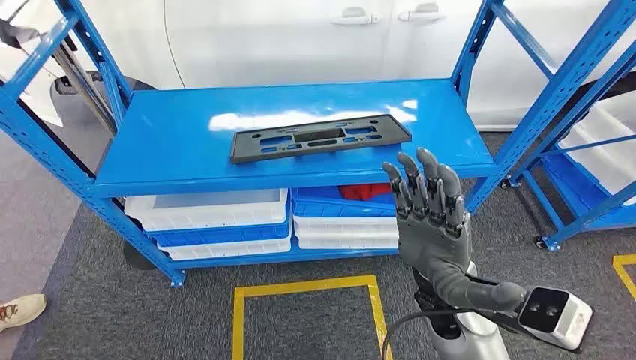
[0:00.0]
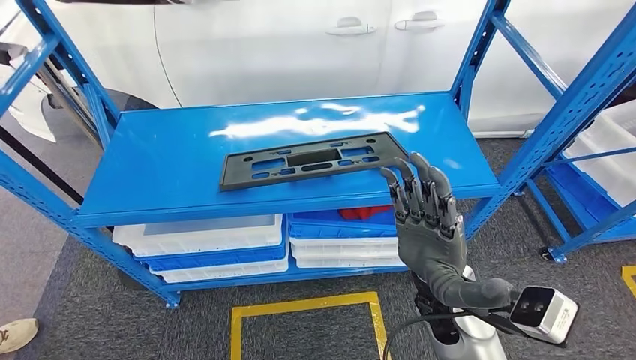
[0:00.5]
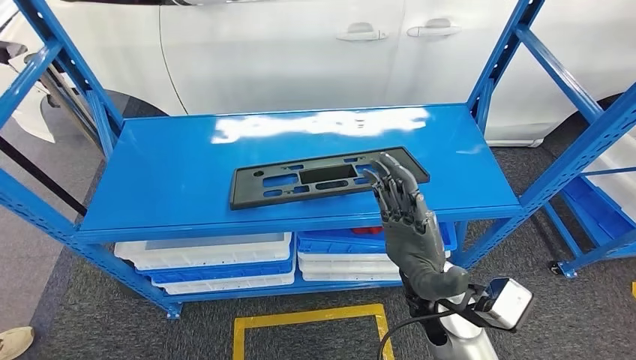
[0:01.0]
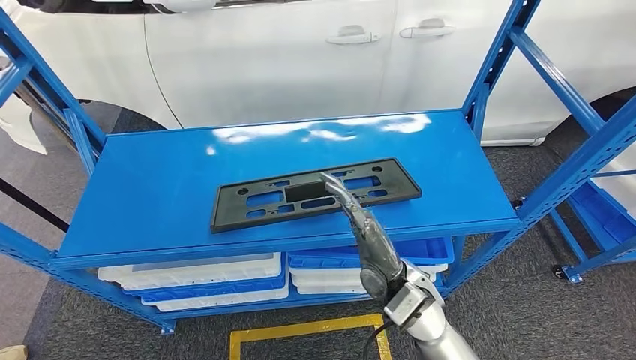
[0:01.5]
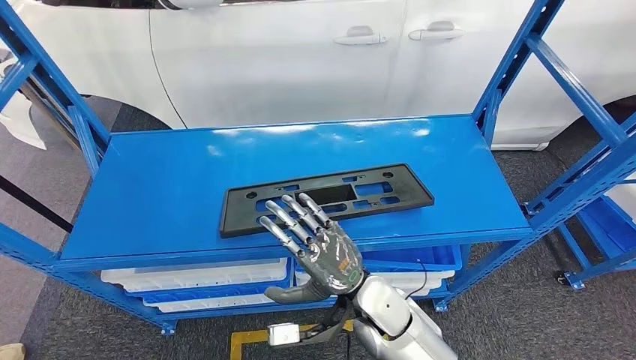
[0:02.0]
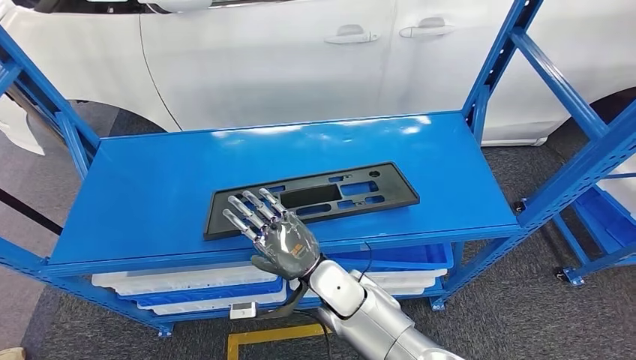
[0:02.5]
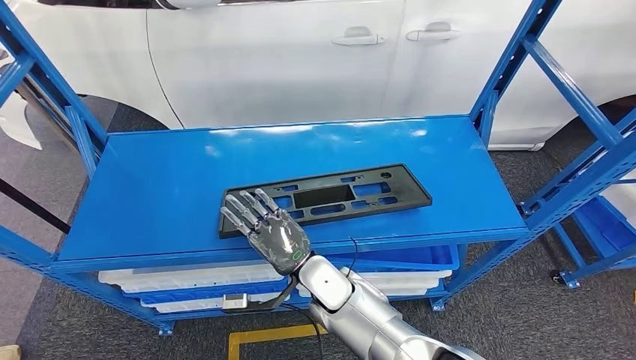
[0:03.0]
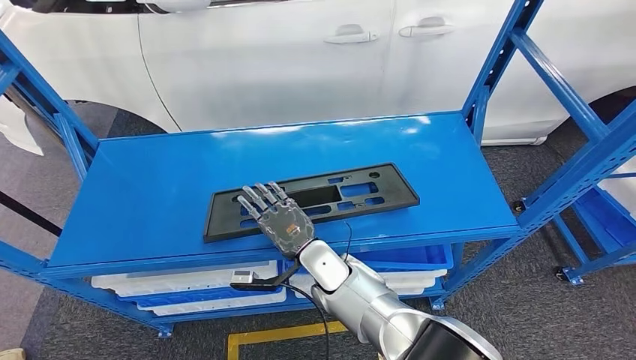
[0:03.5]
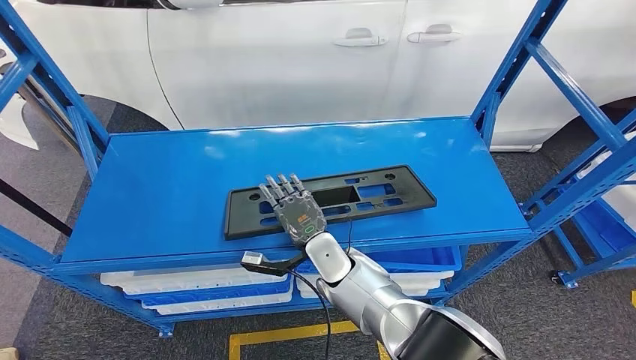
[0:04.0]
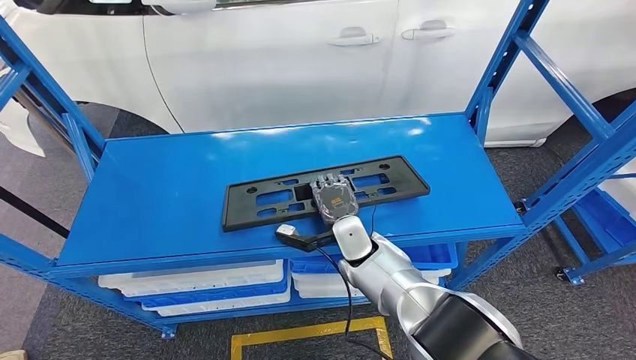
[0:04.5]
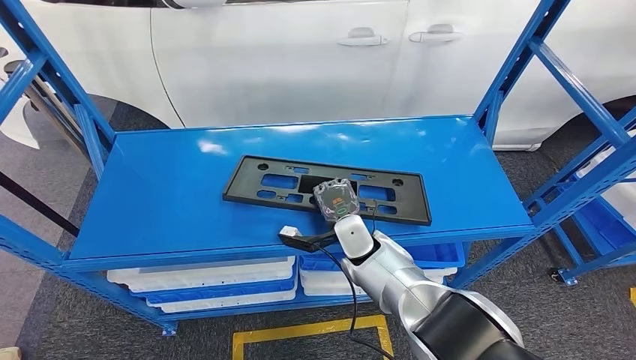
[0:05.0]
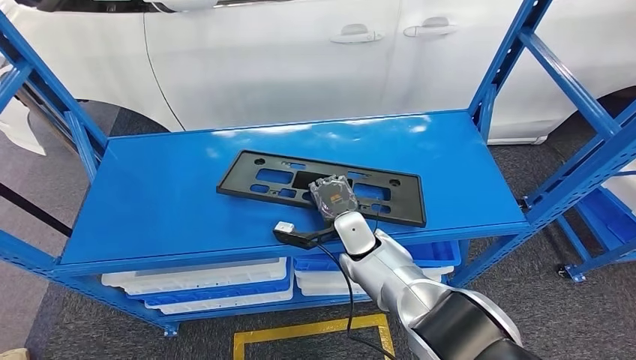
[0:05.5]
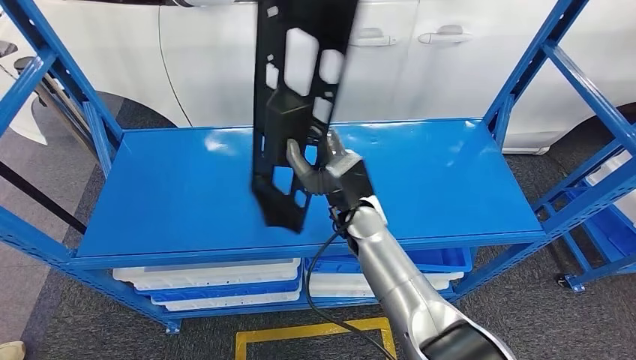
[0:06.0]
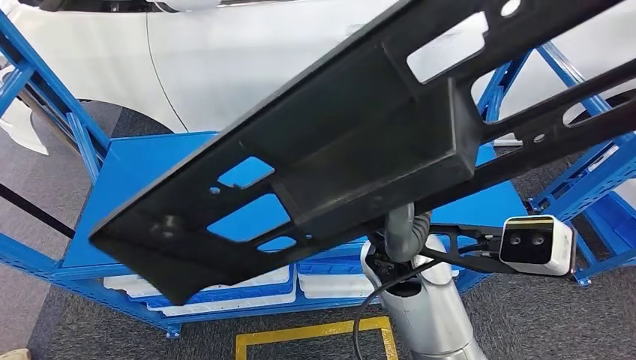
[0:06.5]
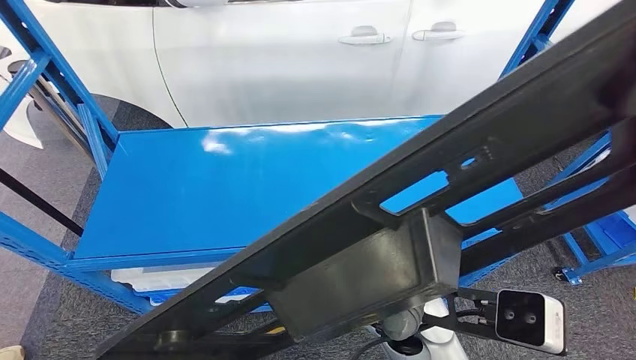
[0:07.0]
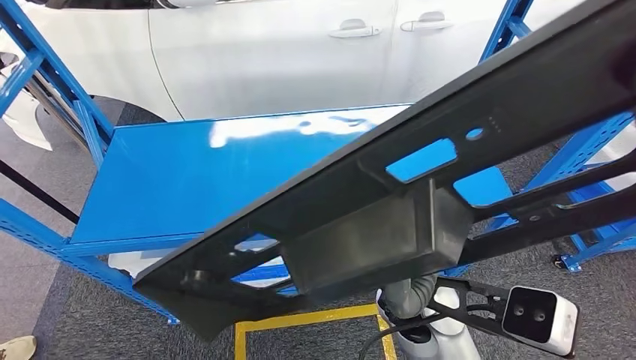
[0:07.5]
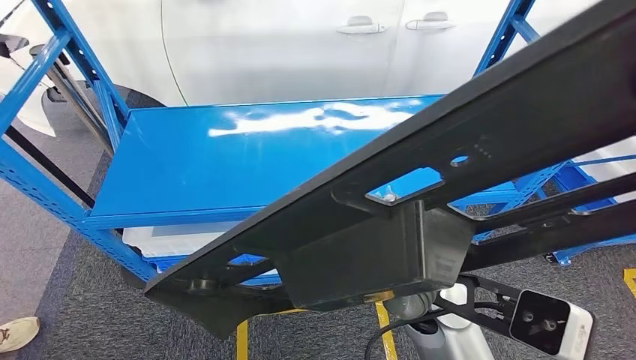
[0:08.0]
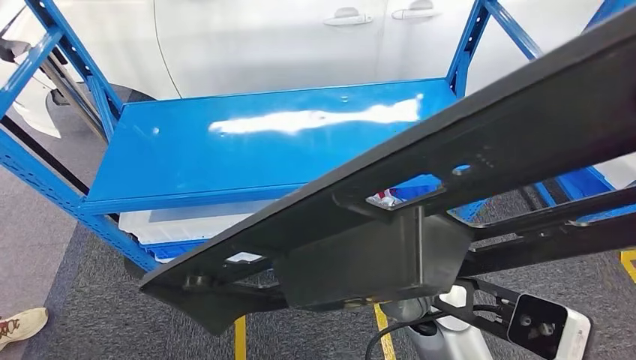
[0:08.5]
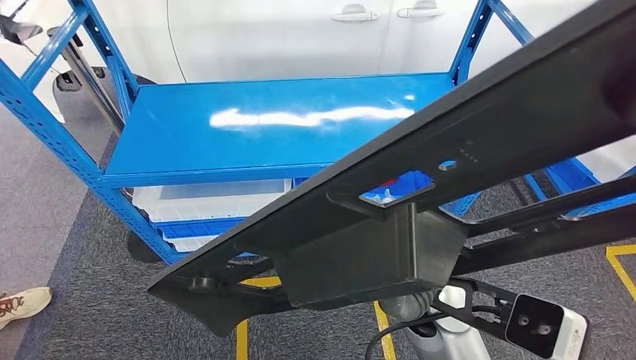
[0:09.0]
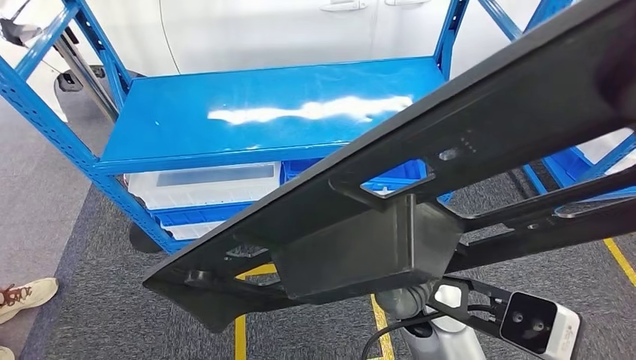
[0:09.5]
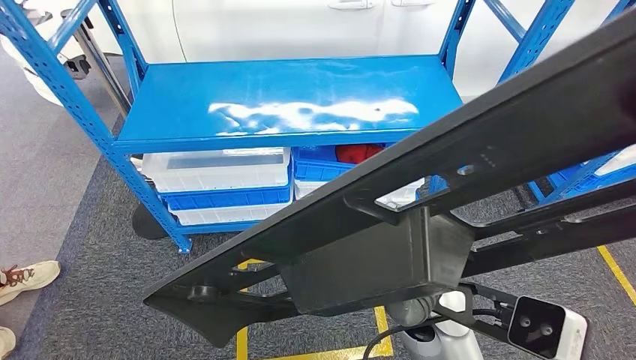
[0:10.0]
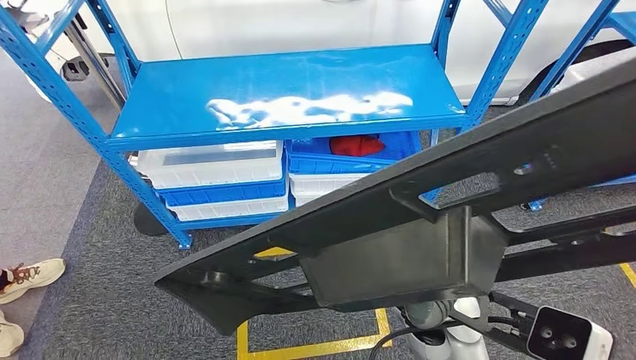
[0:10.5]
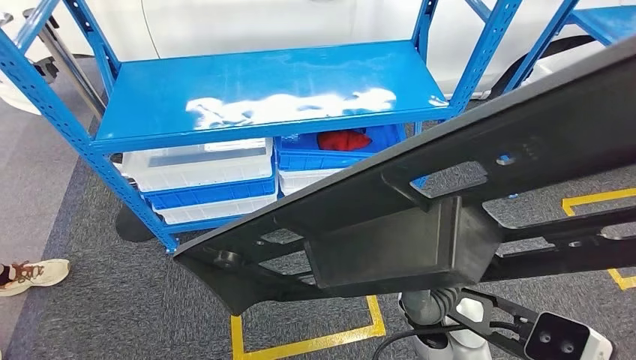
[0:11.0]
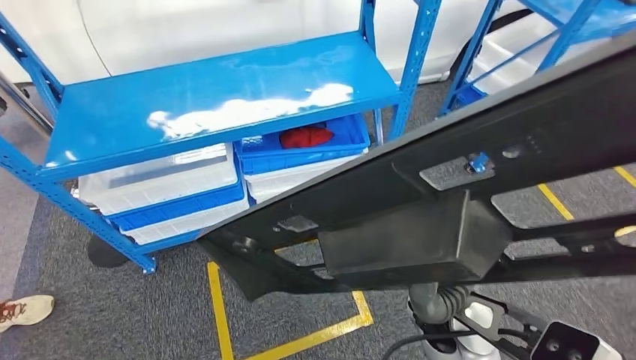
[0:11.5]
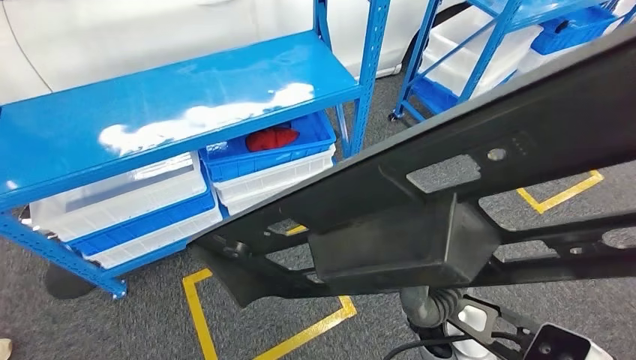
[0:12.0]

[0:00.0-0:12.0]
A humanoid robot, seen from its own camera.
Step, 0:00.0 to 0:07.5: Pick up the large material from the shelf.
0:02.0 to 0:04.0: The right hand moves forward and to the left, approximately 10 cm.

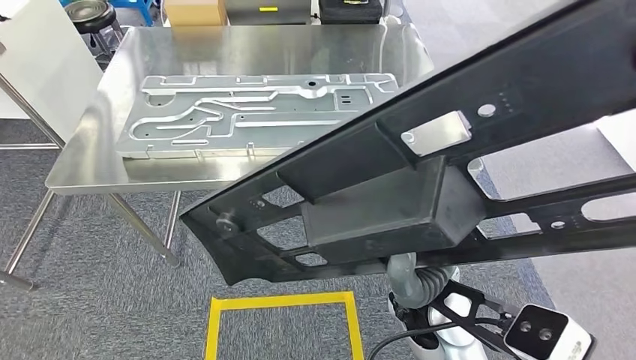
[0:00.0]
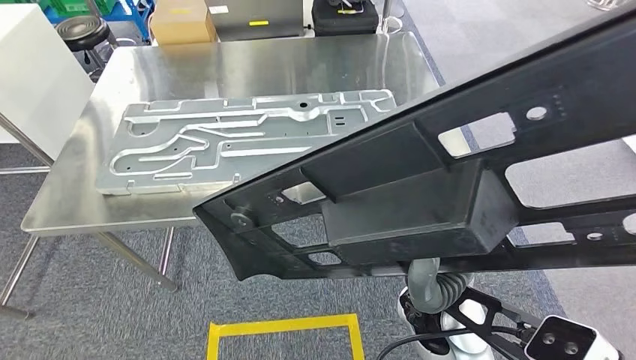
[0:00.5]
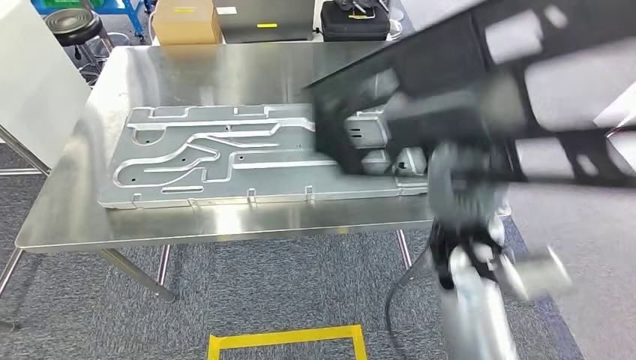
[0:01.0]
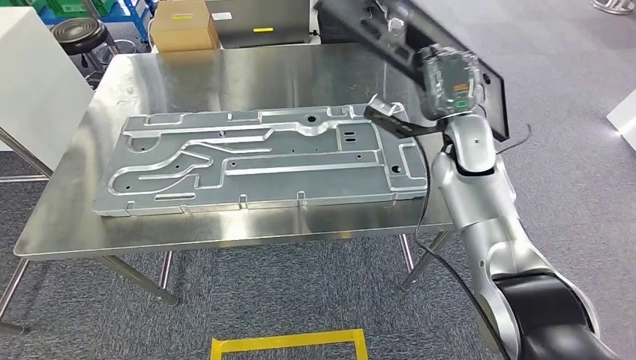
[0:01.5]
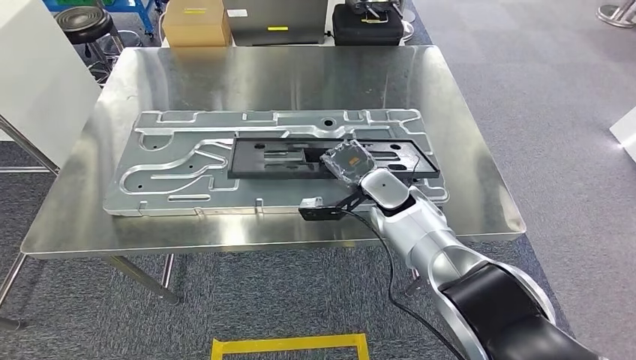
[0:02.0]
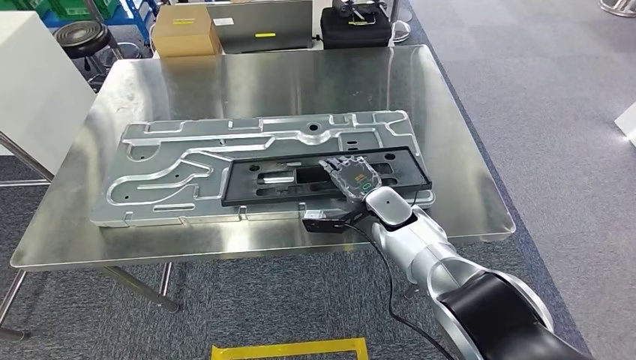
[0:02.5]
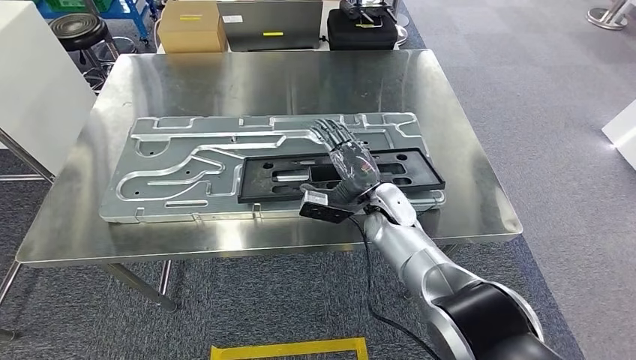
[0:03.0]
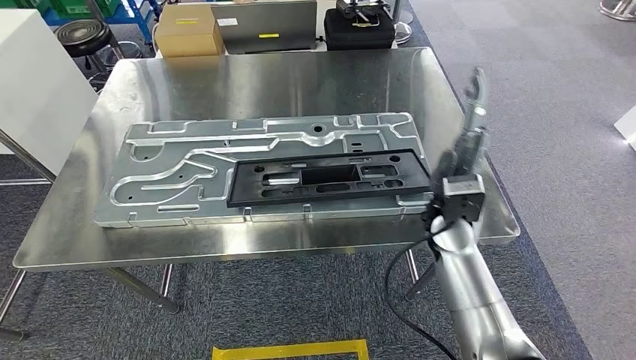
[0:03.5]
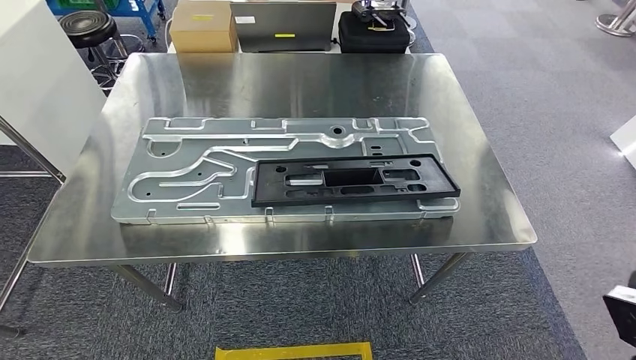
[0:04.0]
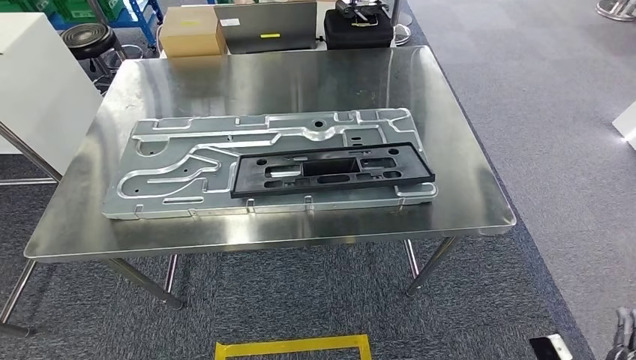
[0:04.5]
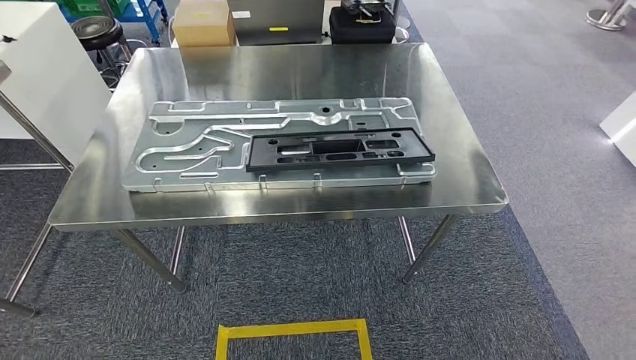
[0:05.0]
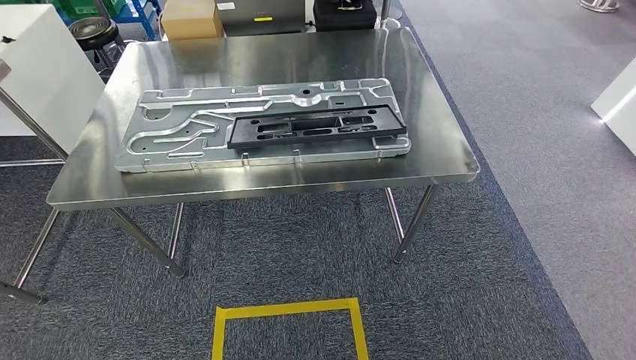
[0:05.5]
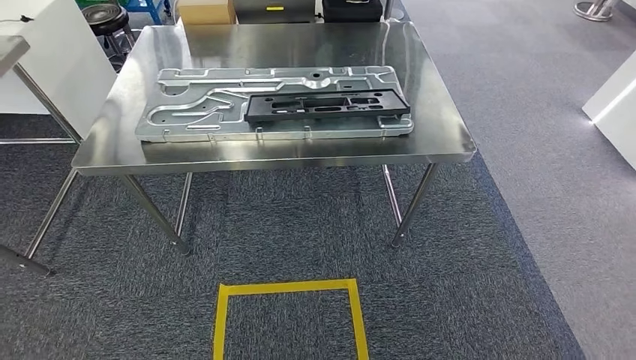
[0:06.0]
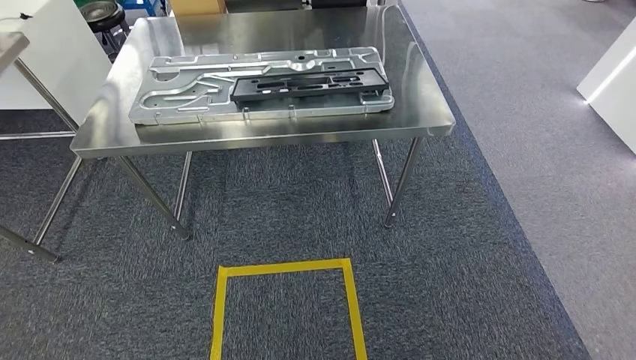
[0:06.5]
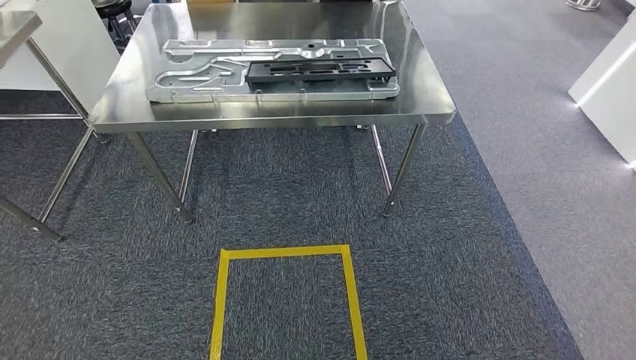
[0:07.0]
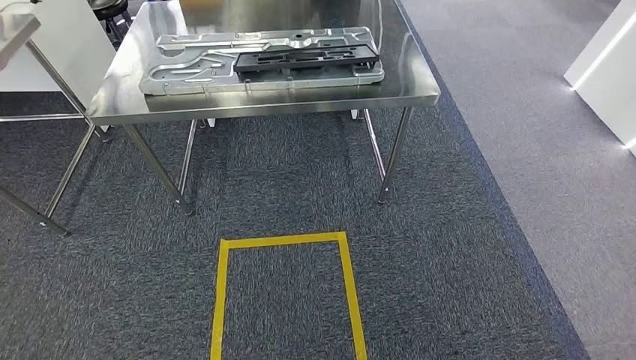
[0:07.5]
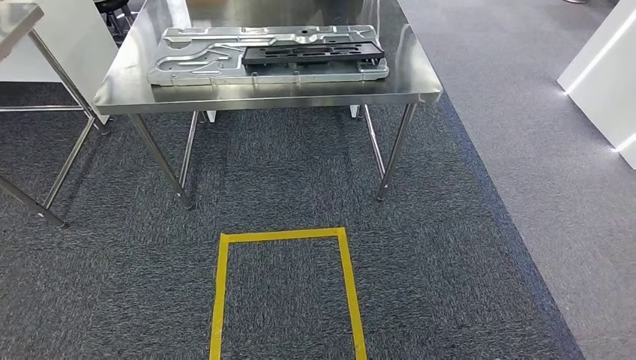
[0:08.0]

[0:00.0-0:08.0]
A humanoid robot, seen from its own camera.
Step, 0:02.0 to 0:04.5: Insert the large material into the corresponding hole on the workbench.
Step, 0:06.5 to 0:08.0: Move to the initial position of the shelf.
